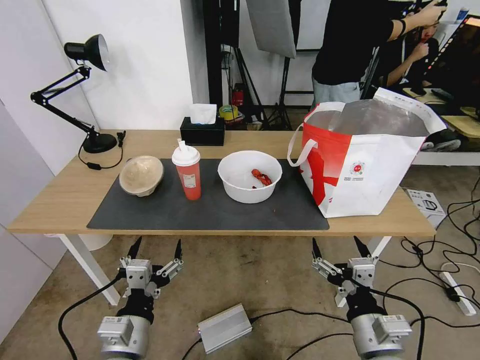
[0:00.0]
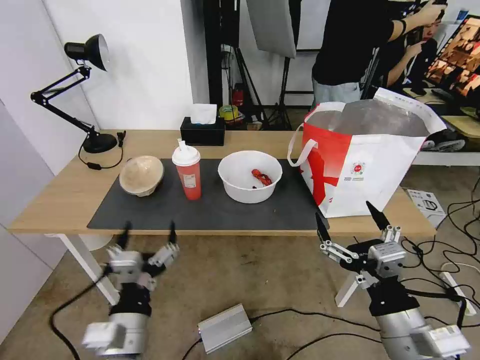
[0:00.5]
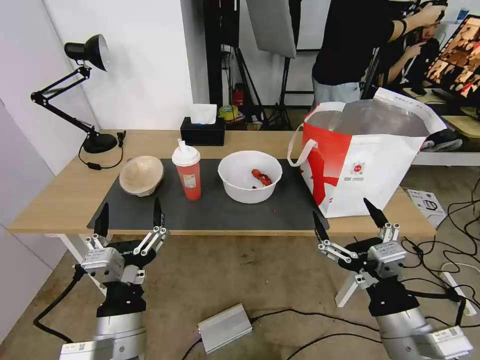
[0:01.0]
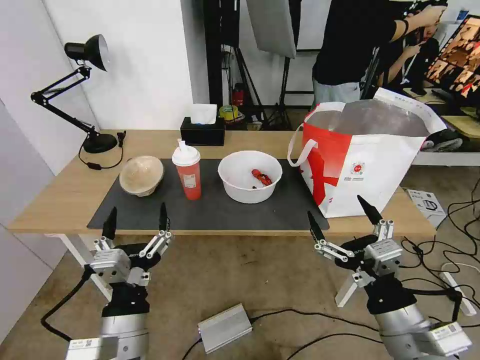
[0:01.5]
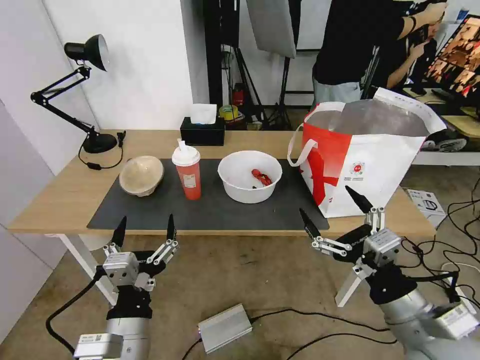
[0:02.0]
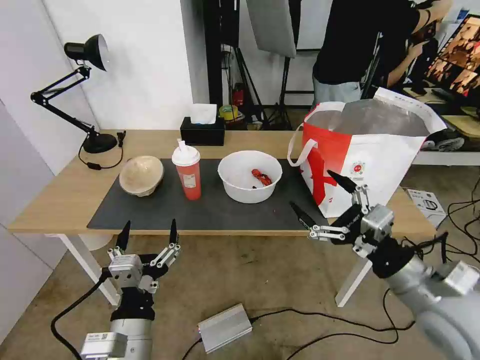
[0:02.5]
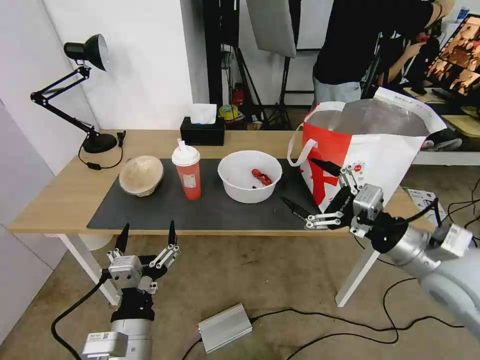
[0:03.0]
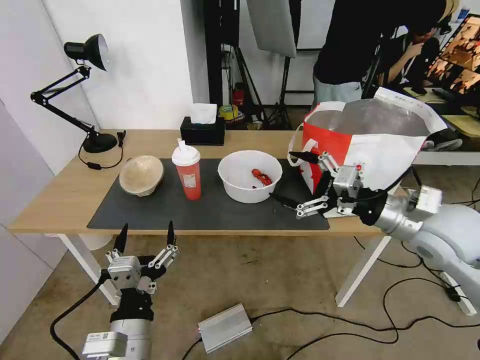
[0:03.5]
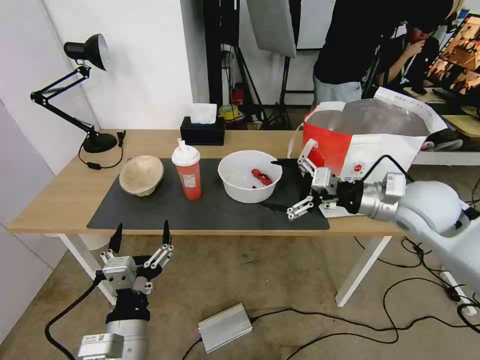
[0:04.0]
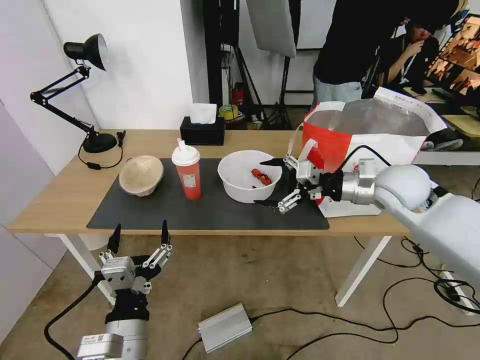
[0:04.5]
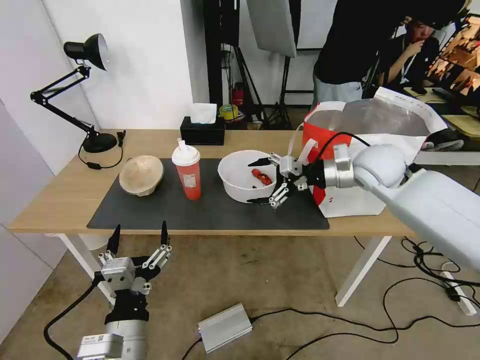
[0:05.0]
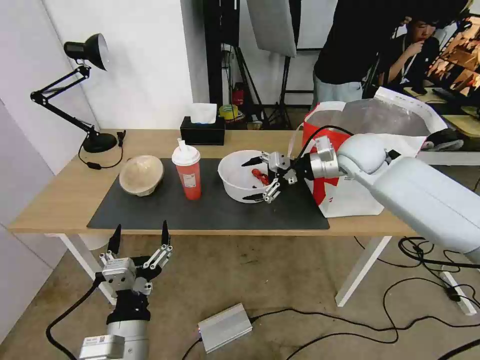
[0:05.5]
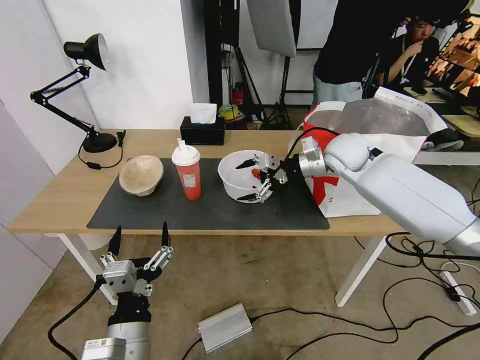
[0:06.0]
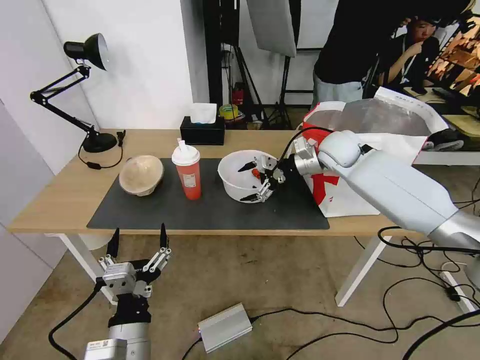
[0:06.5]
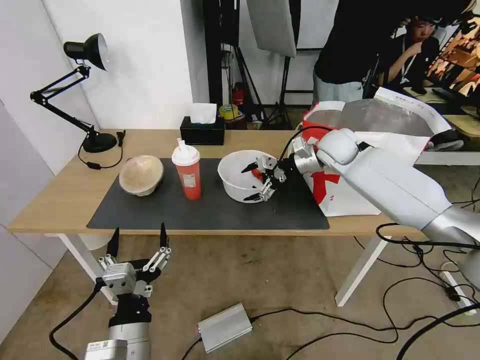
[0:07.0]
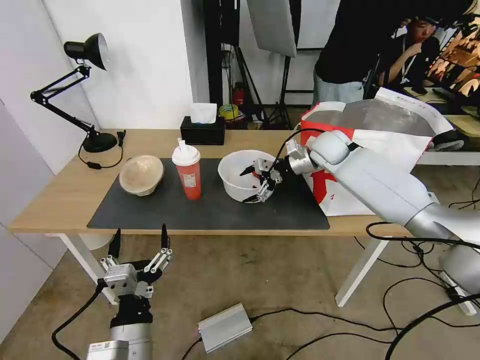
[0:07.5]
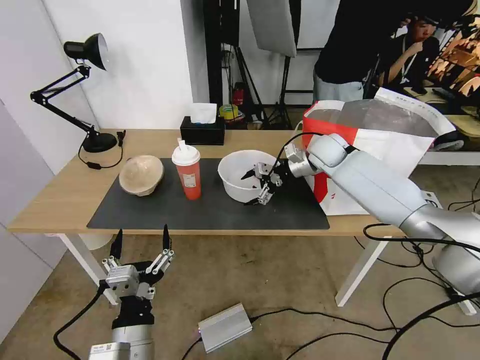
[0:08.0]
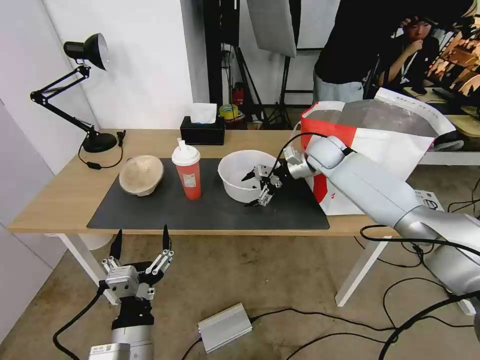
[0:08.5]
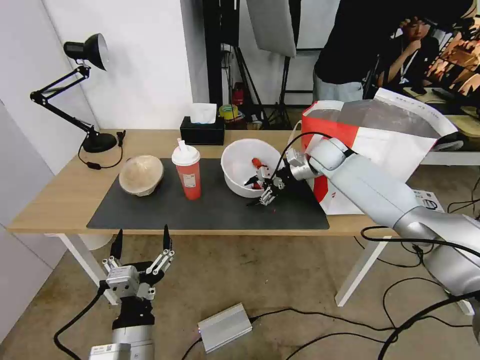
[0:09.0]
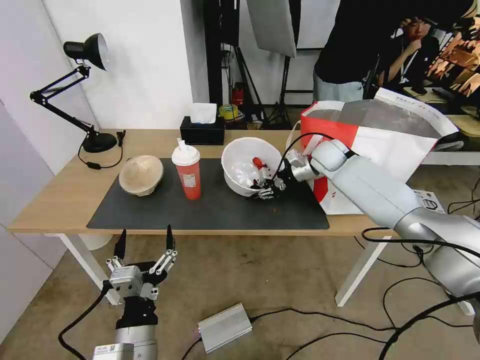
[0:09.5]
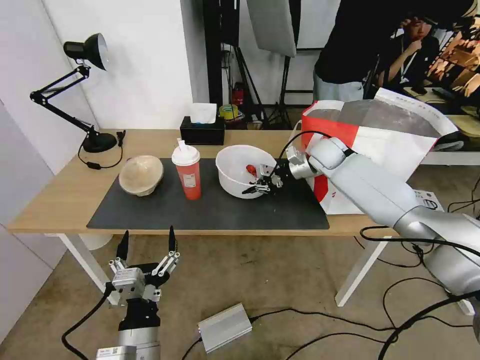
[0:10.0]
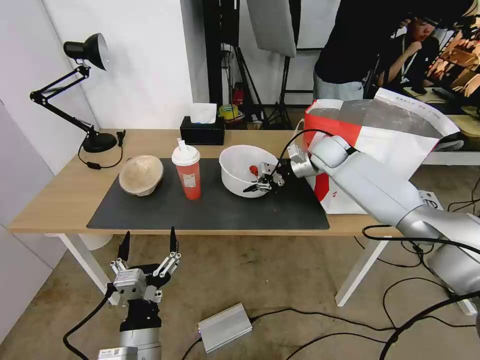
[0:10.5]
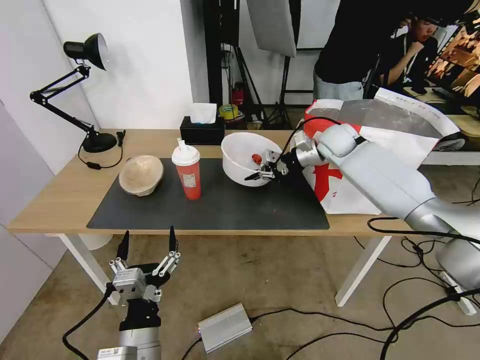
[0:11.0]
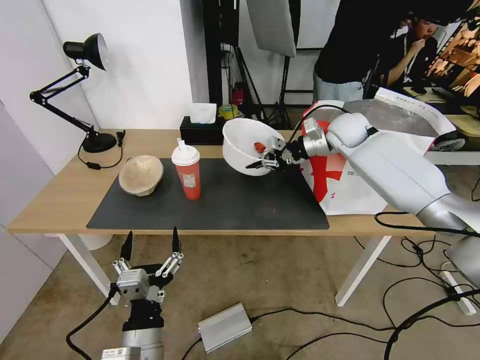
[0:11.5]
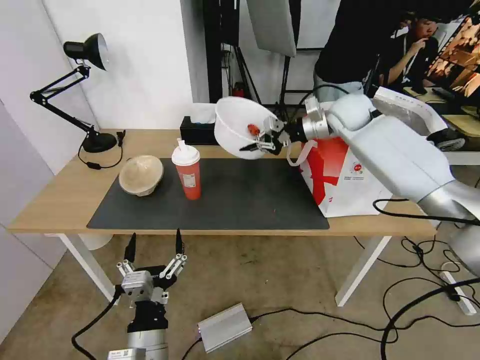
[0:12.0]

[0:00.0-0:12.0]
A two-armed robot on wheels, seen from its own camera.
Task of the whole recording: Pick up the trash from the table and place it into the takeout bag.
0:02.0 to 0:04.0: The right gripper goes some 20 cm forward.
0:04.0 to 0:06.0: The right gripper heads forward and to the left, covering some 20 cm.
0:06.0 to 0:08.0: The right gripper goes some 5 cm forward.
0:08.0 to 0:10.0: The right gripper closes.
0:10.0 to 0:12.0: The right gripper shifts roughly 10 cm upward.

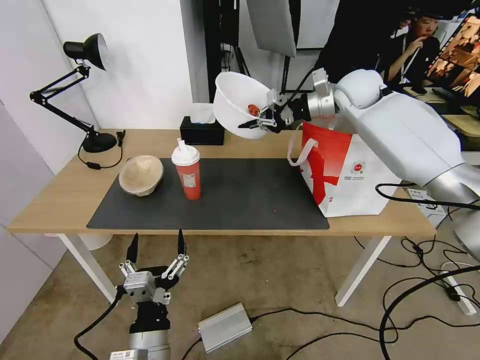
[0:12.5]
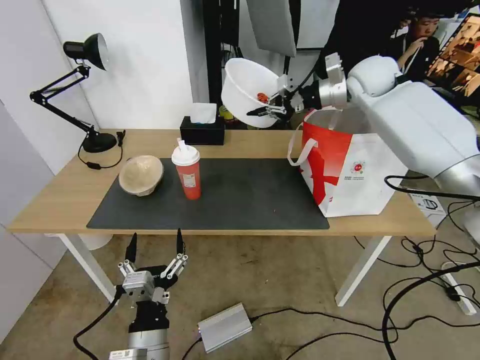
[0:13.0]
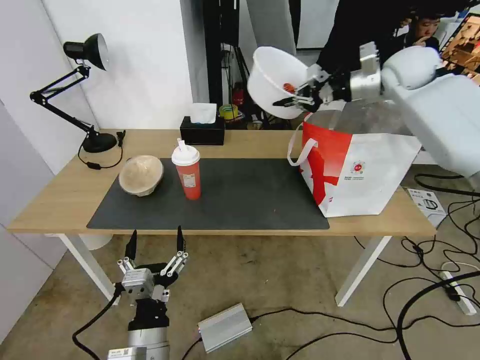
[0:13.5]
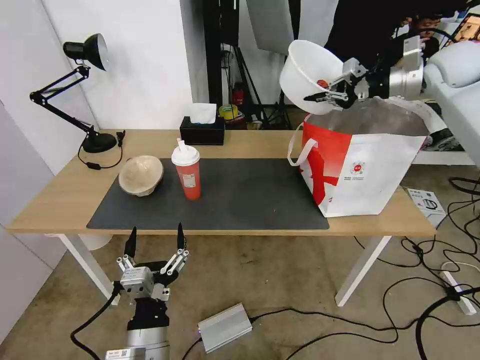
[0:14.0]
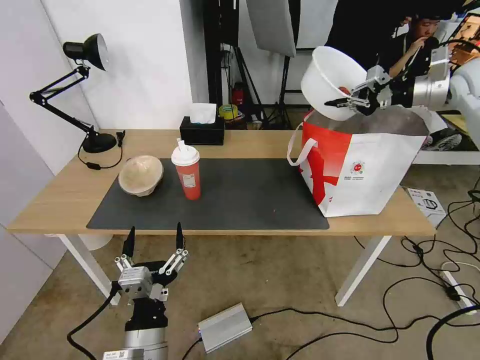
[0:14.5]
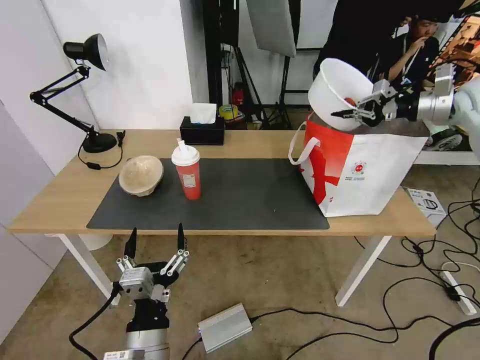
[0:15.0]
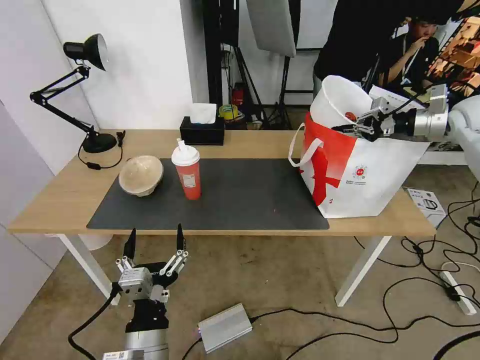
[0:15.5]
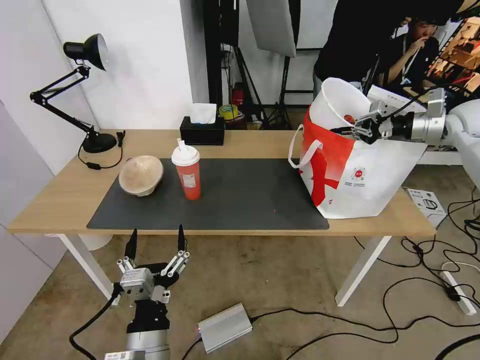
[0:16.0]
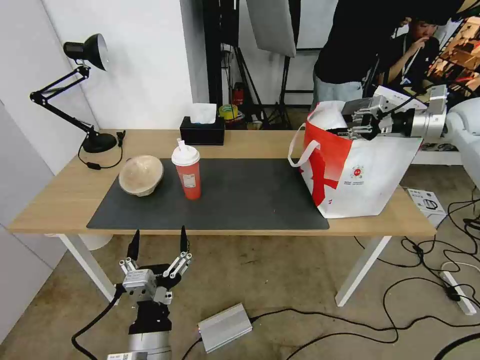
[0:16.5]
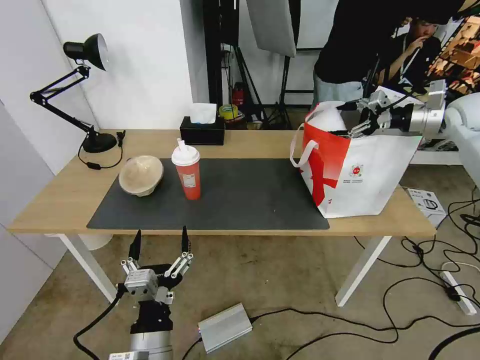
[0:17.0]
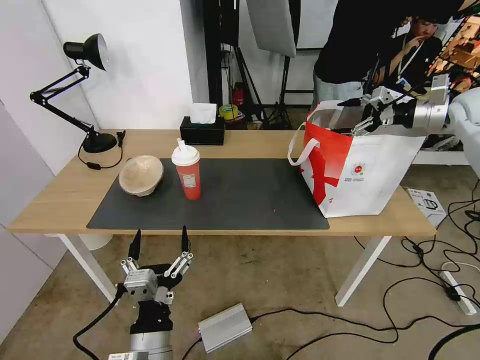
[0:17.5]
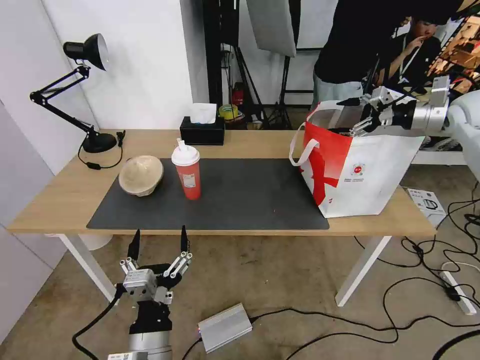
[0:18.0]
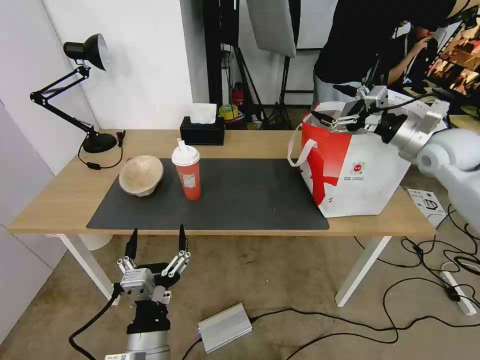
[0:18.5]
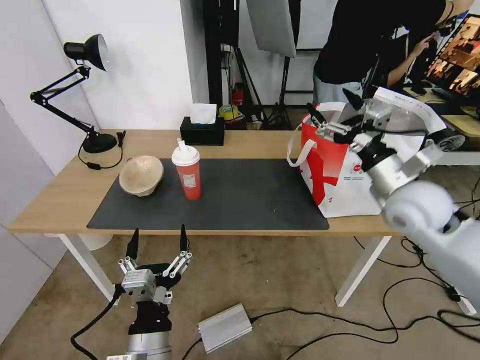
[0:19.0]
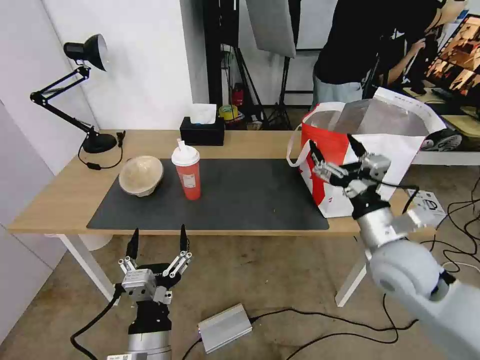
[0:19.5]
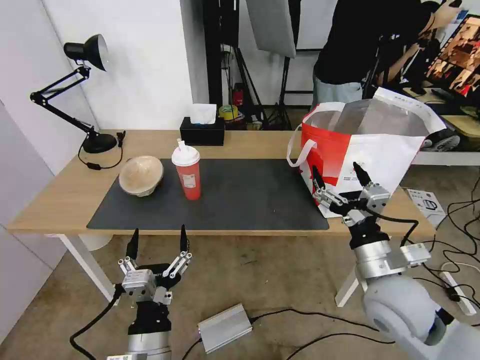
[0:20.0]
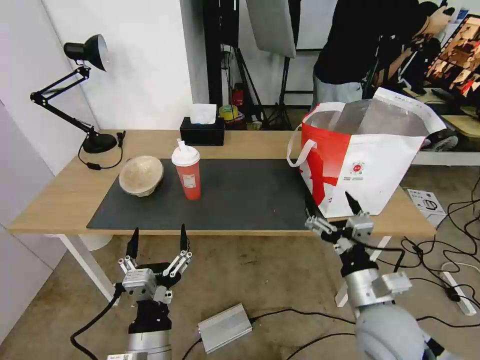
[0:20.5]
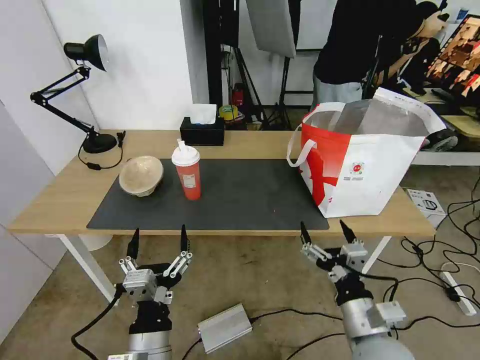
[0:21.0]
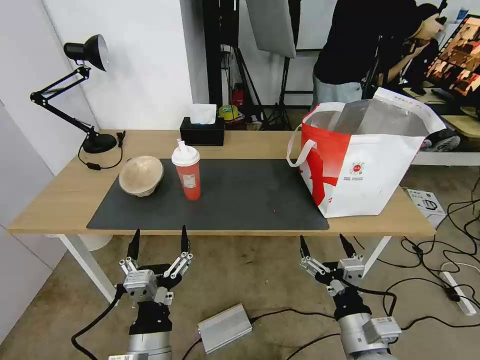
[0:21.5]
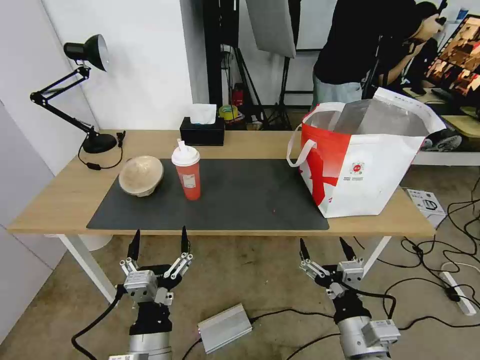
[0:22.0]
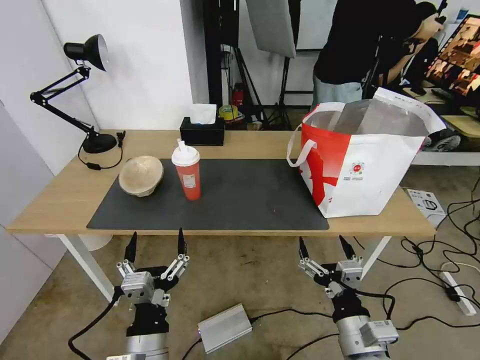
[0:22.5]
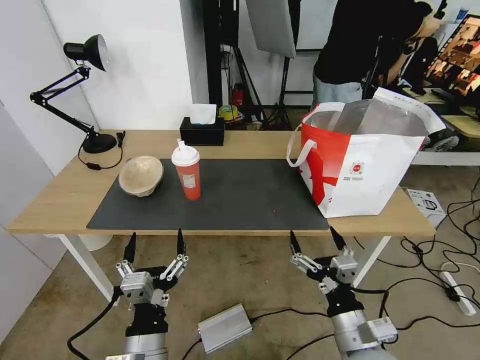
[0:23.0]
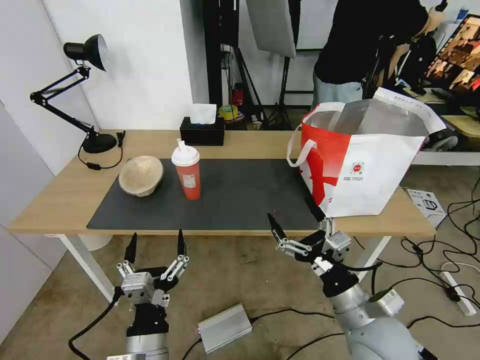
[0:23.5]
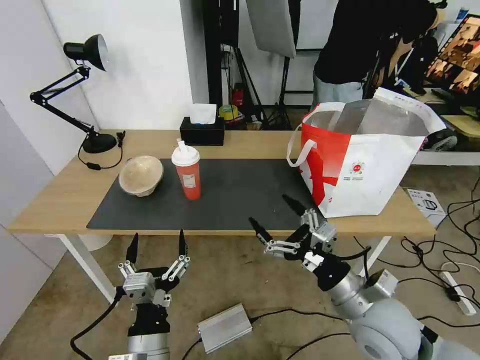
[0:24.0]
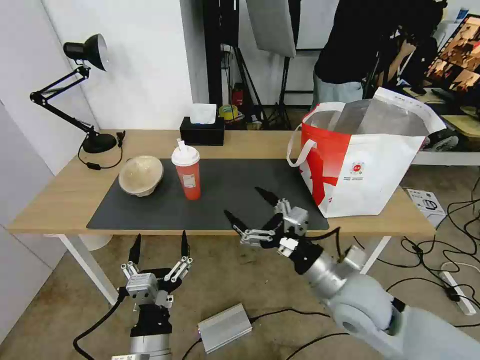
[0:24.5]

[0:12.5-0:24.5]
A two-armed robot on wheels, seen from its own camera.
Task of the whole recording: Pick up the trash from the table and place it into the takeout bag.
0:12.5 to 0:14.5: The right gripper moves to the right, about 20 cm.
0:14.5 to 0:16.5: The right gripper is displaced downward by about 5 cm, and opens up.
0:16.5 to 0:18.5: The right gripper goes some 5 cm to the left, and opens up.
0:18.5 to 0:20.5: The right gripper travels backward, to the left and downward by about 40 cm.
0:20.5 to 0:22.5: The right gripper heads backward, covering approximately 5 cm.
0:22.5 to 0:24.5: The right gripper heads forward and upward, covering approximately 15 cm.

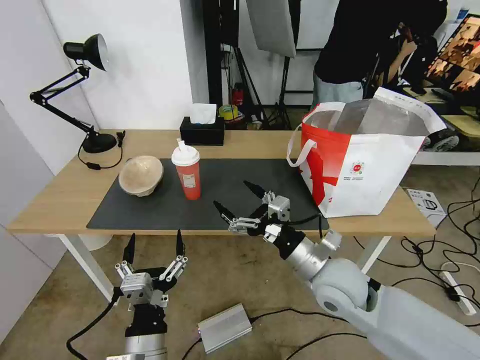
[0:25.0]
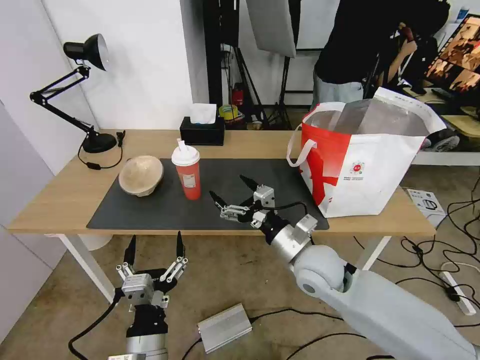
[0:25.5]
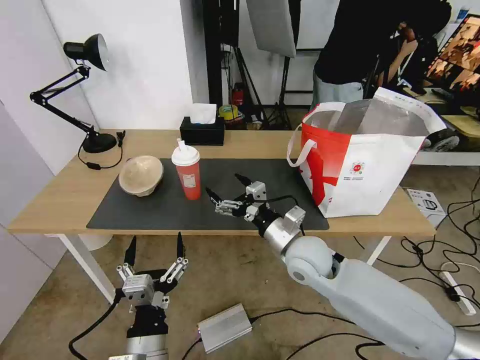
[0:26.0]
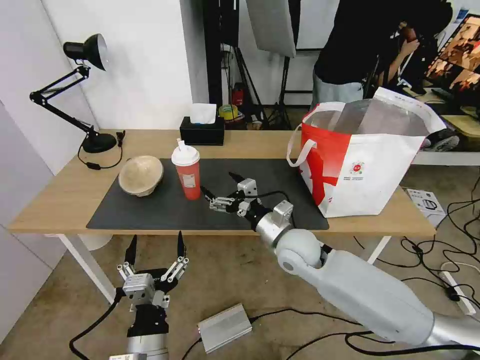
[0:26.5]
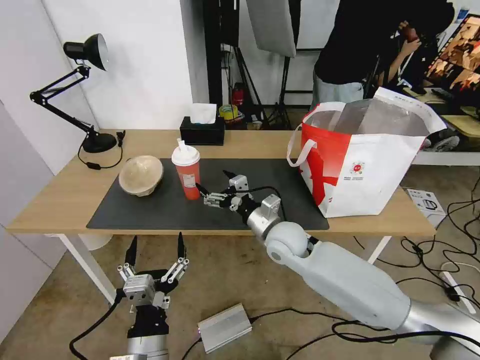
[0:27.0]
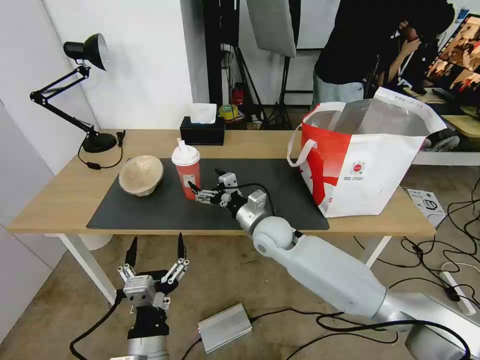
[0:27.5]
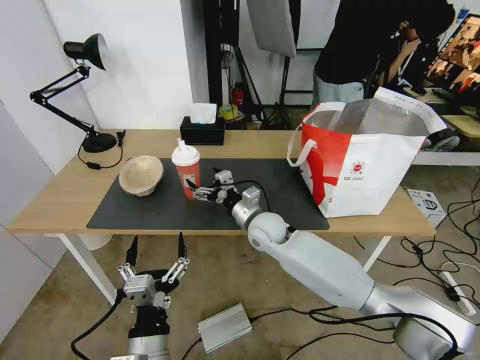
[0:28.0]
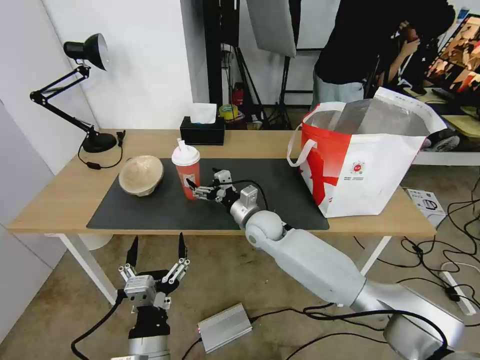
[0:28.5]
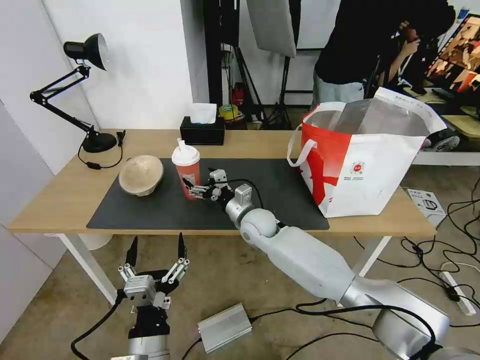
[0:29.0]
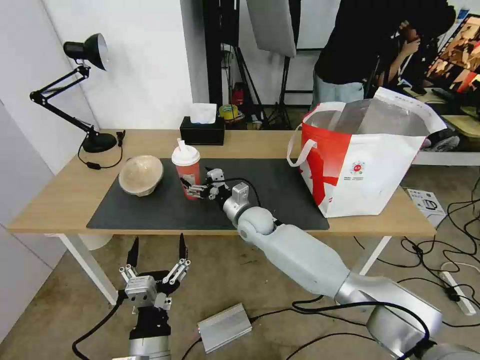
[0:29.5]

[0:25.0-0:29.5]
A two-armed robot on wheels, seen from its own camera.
Task of the whole recording: Pick up the trash from the table and place it into the takeout bag.
0:25.0 to 0:27.0: The right gripper moves forward and to the left, some 15 cm.
0:27.0 to 0:29.5: The right gripper shifts approximately 10 cm forward and to the left.
